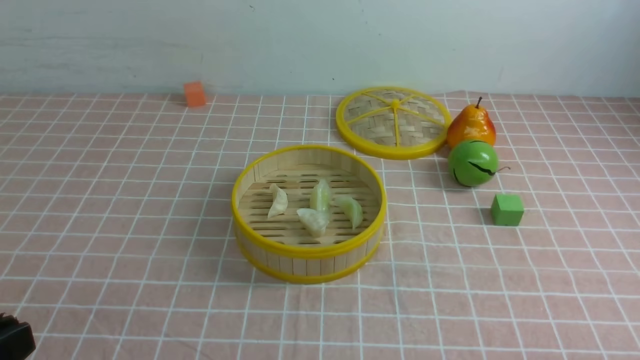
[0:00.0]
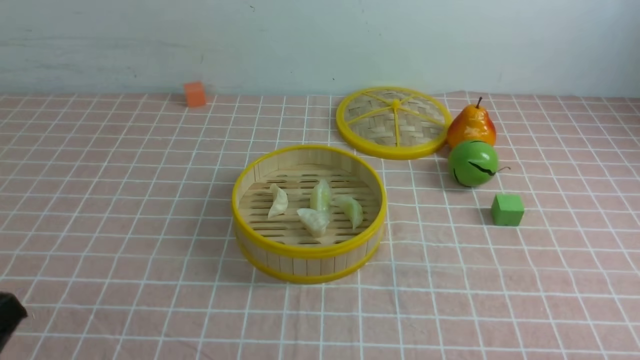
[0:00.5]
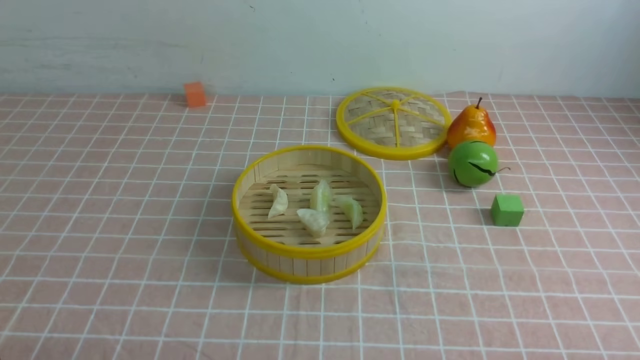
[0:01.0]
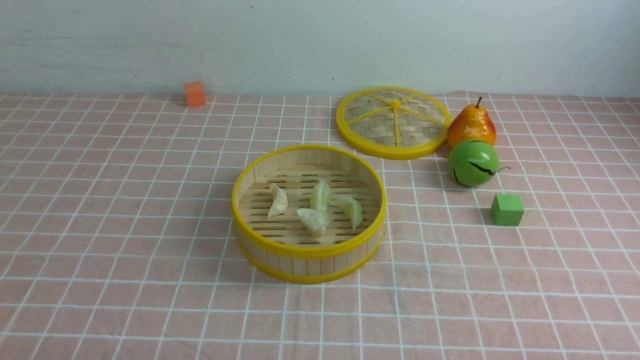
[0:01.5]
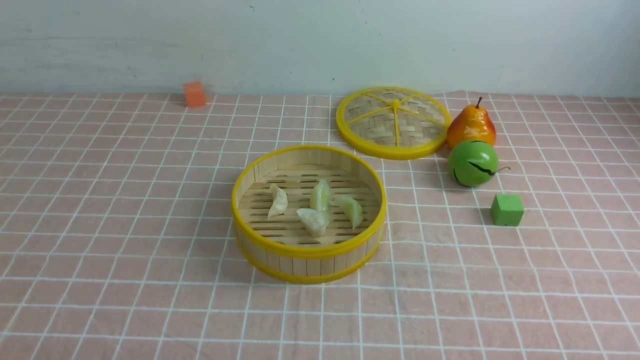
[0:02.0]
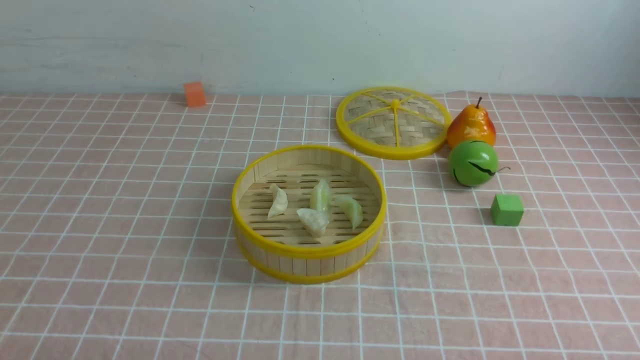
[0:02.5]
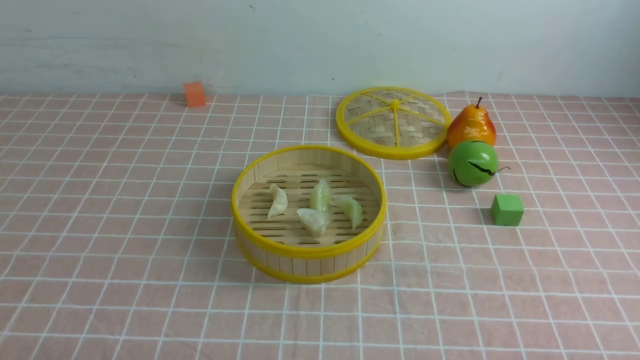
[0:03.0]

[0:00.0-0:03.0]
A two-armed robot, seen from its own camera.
Task of the whole recording: put the dumplings into the steamer on the table with the pink tablecloth.
0:01.5 to 0:03.0: Both grippers stay about where they are.

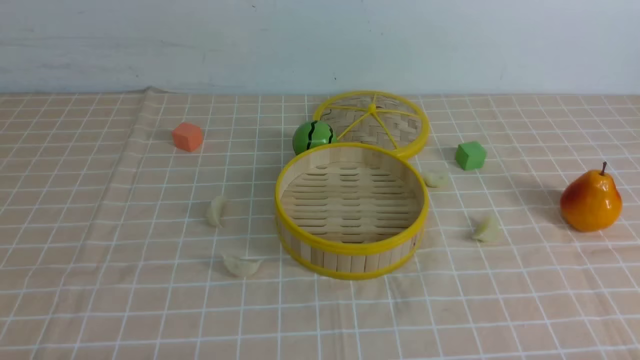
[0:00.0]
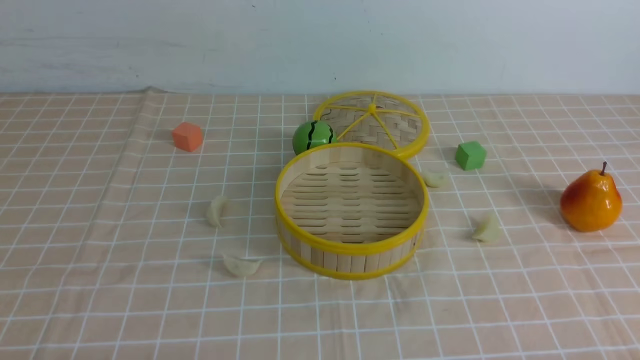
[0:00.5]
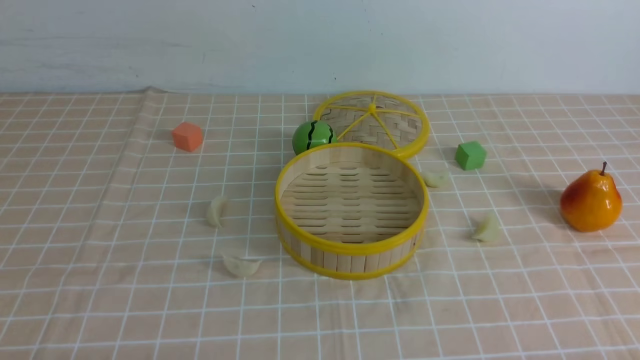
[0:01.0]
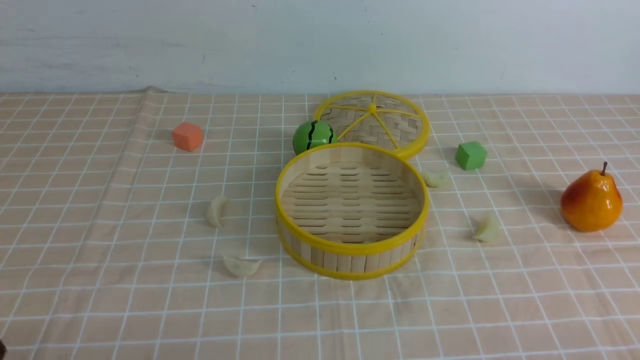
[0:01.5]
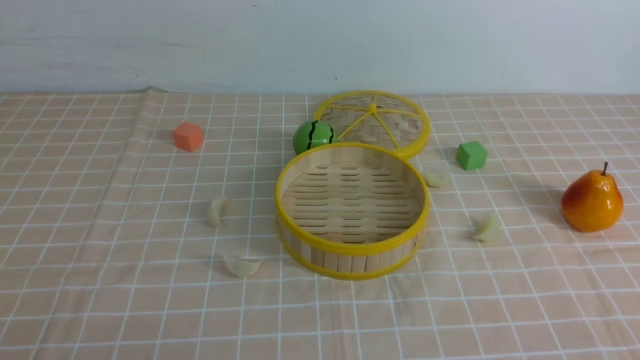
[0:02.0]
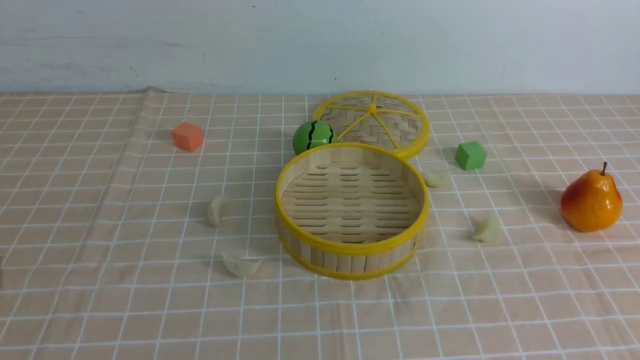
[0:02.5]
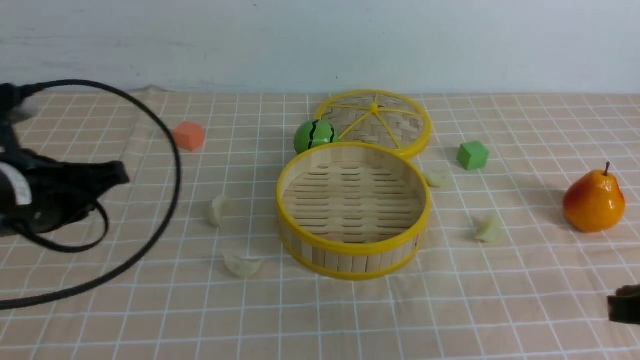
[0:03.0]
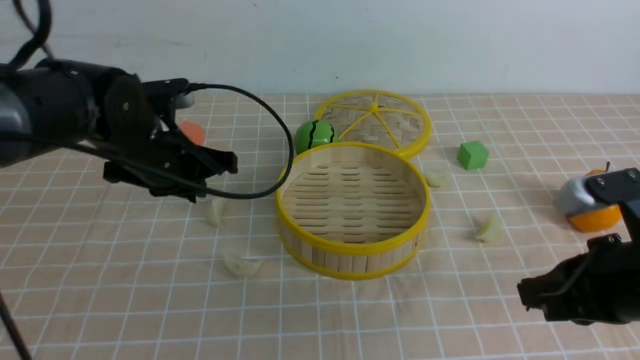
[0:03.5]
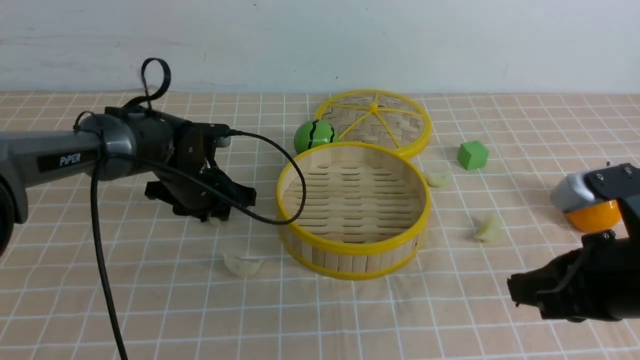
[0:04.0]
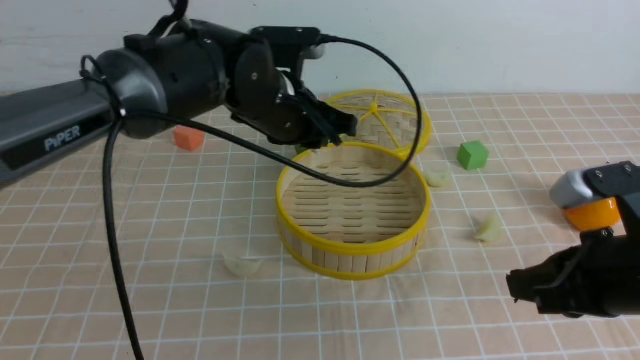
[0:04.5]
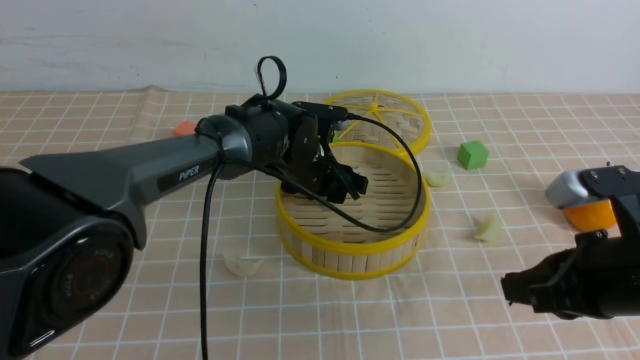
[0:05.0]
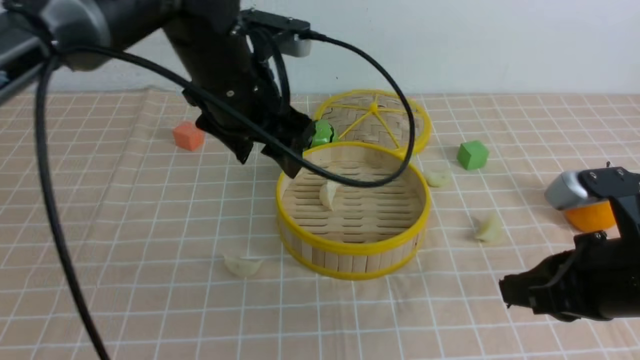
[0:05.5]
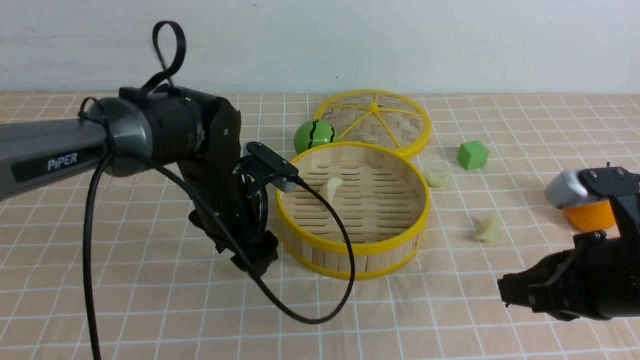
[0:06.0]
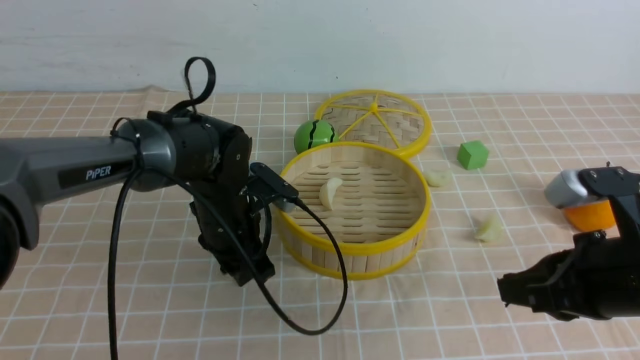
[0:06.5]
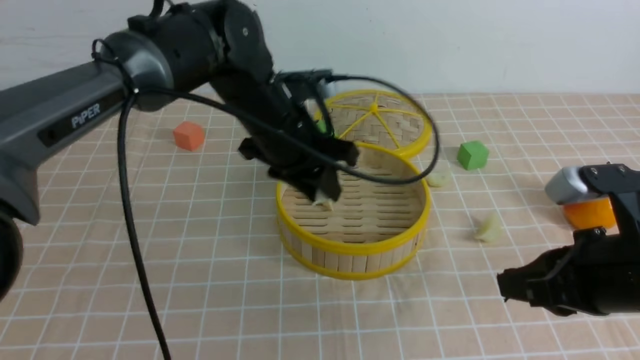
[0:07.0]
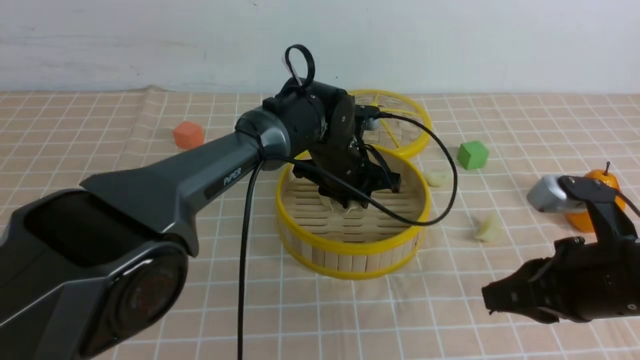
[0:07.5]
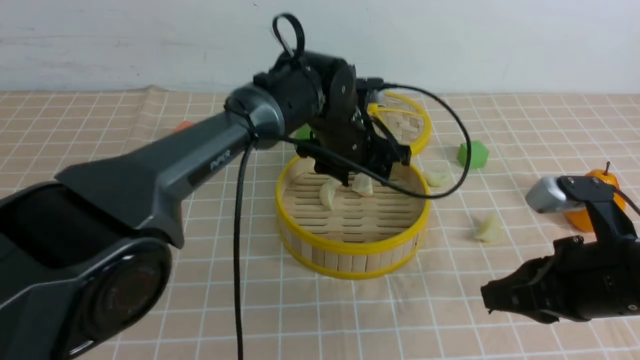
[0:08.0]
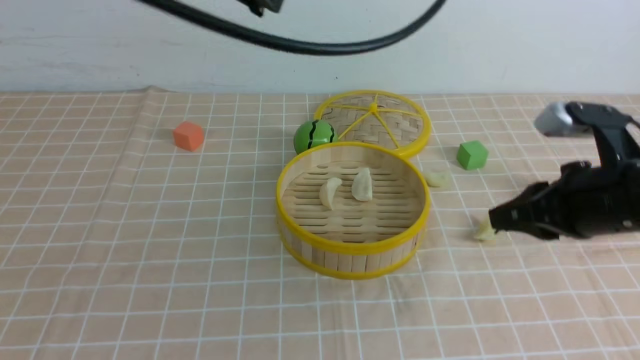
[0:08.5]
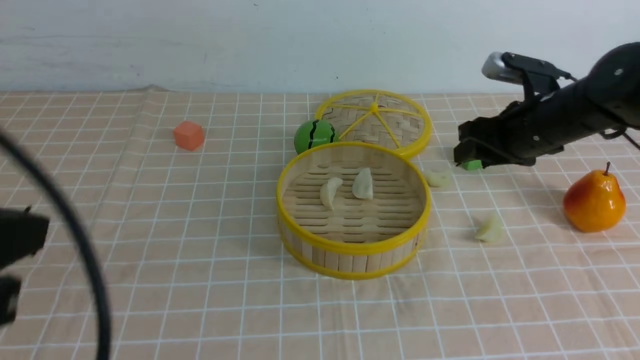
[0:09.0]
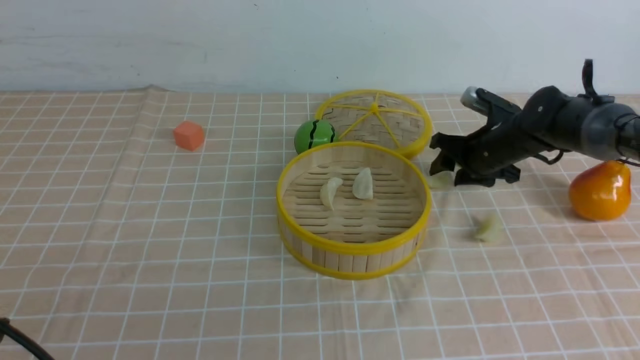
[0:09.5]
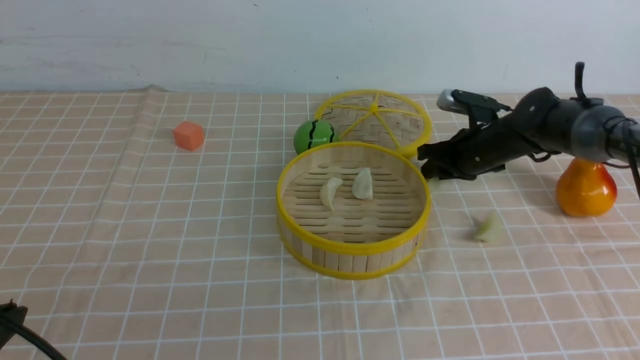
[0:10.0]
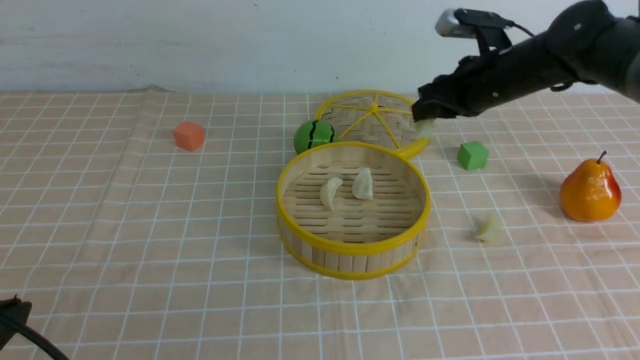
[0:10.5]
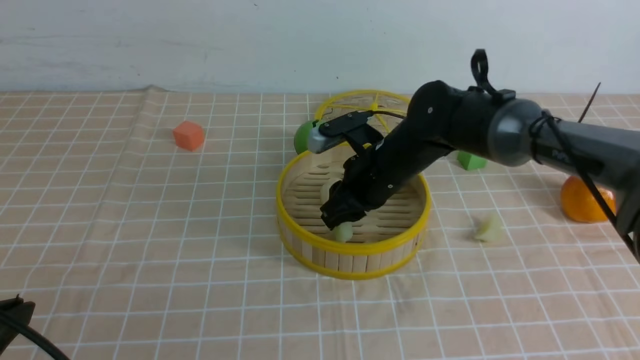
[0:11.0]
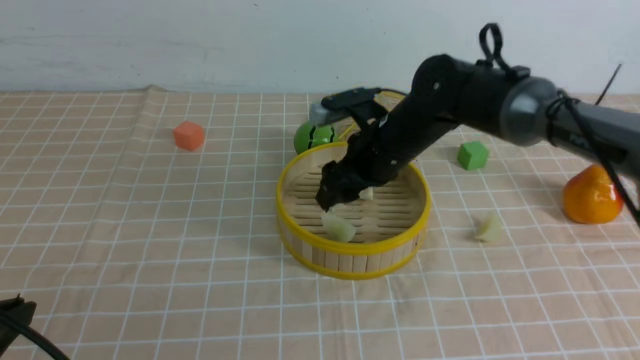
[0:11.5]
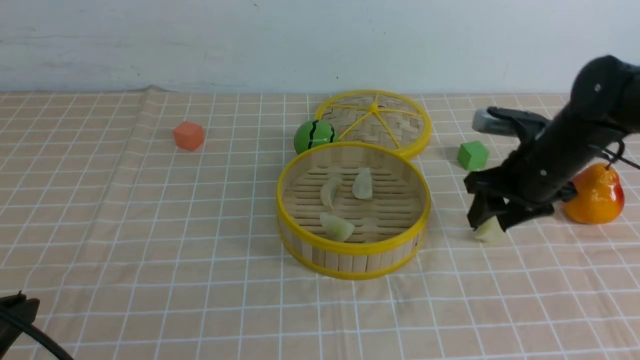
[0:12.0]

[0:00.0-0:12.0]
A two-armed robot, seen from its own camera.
Task of the whole recording: put the dumplings into the steamer on the table with the brown tablecloth.
Step, 0:00.0 to 0:04.0: use the left arm to grab a dumpling.
Step, 0:04.5 to 0:05.0: use the left arm to put the dumpling into the steamer.
Step, 0:05.5 to 0:06.0: use the left arm to grab a dumpling.
Step, 0:07.0 to 0:08.0: use the left arm to put the dumpling into the steamer.
Step, 0:08.5 to 0:10.0: use the right arm to grab a dumpling.
Step, 0:10.5 to 0:11.5: use the right arm to put the dumpling into the steamer.
0:02.0 to 0:04.0: The right gripper shifts approximately 20 cm forward and to the left, and closes its fingers; the left gripper moves forward, some 40 cm.
0:04.0 to 0:06.0: The left gripper heads backward and to the right, covering roughly 10 cm, and opens.
0:06.0 to 0:08.0: The left gripper travels to the right, upward and forward by some 15 cm, and closes and opens again.
0:08.0 to 0:10.0: The right gripper heads forward, covering about 30 cm, and opens, then closes again, while the left gripper moves backward and to the left, roughly 40 cm, and closes.
0:10.0 to 0:12.0: The right gripper travels backward and upward by approximately 10 cm, moves about 15 cm to the left and comes back, and opens up.

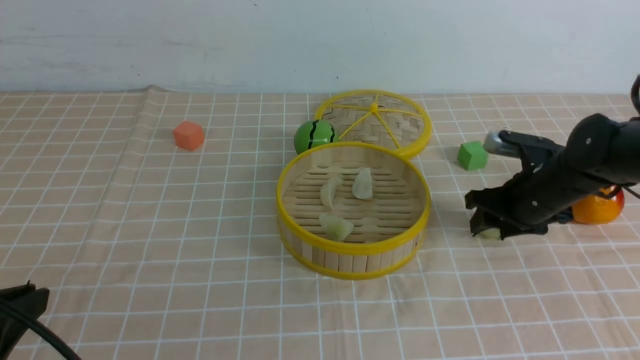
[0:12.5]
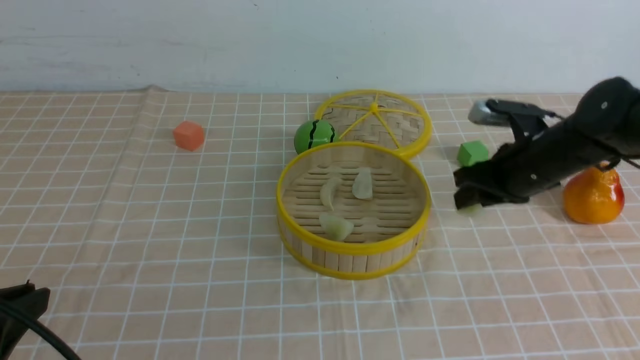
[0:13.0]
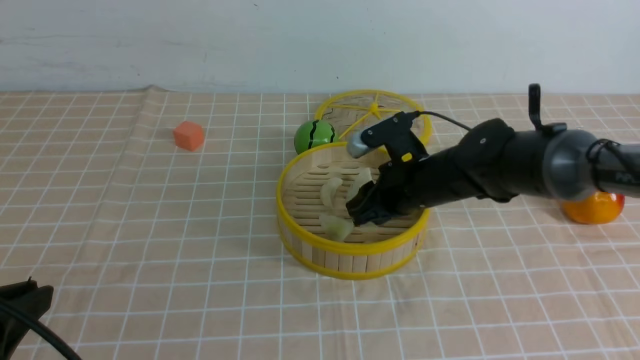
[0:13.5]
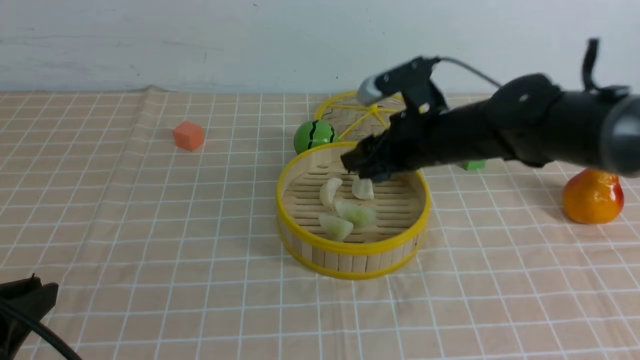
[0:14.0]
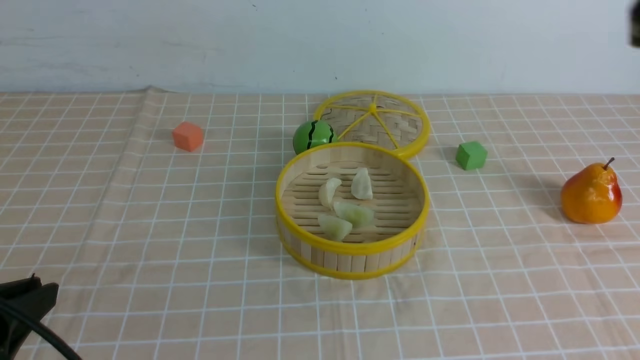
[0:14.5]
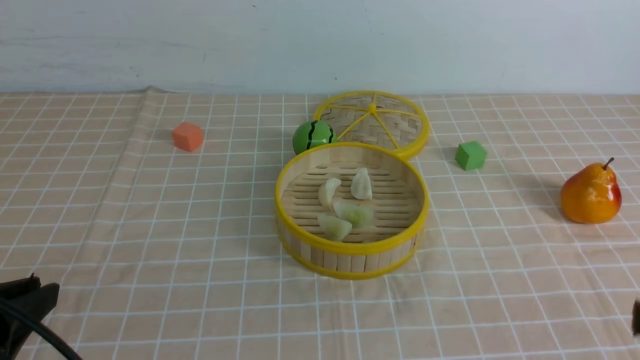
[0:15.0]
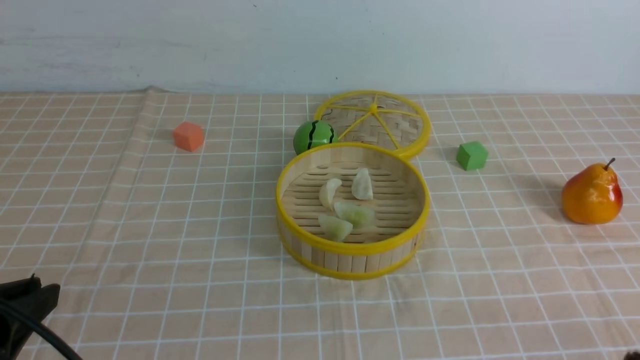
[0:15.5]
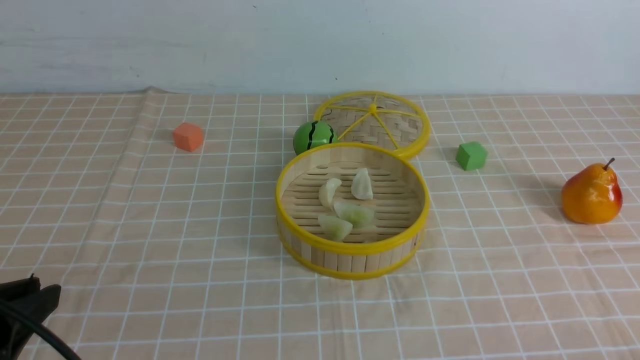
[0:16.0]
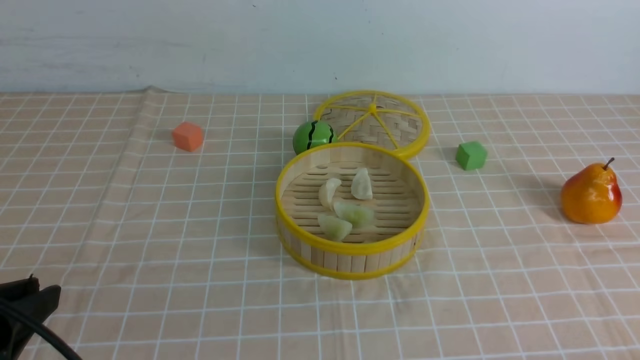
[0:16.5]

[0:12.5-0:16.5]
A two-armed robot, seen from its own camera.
Task of the whole recording: put the dumplings into the steamer on the table with the brown tablecloth.
Step, 0:13.0 to 0:13.5: use the right arm to put the dumpling into the steamer.
0:12.5 to 0:14.5: The right gripper heads upward and backward, covering some 40 cm, and closes.
